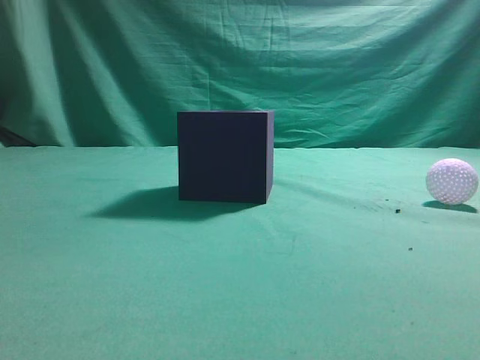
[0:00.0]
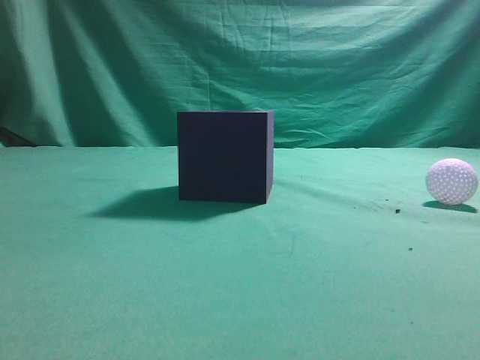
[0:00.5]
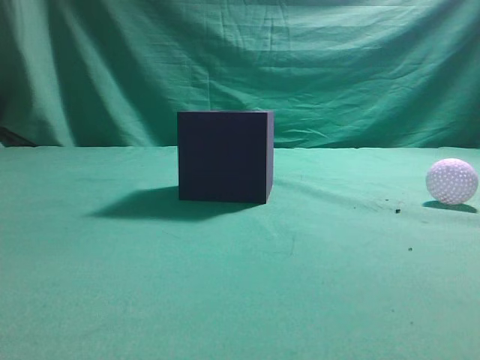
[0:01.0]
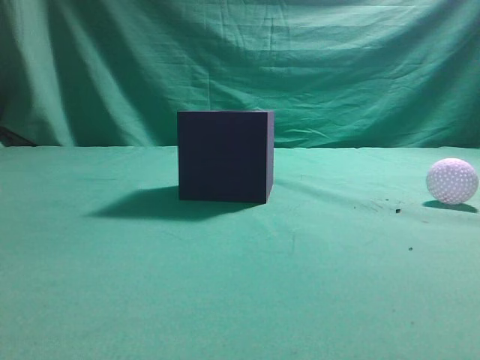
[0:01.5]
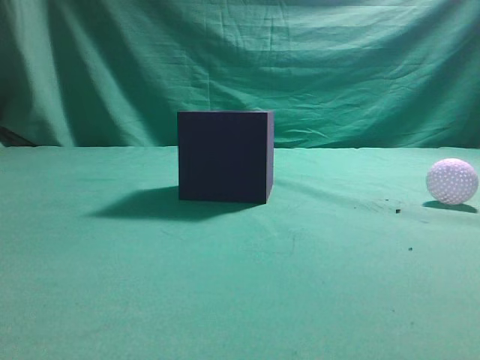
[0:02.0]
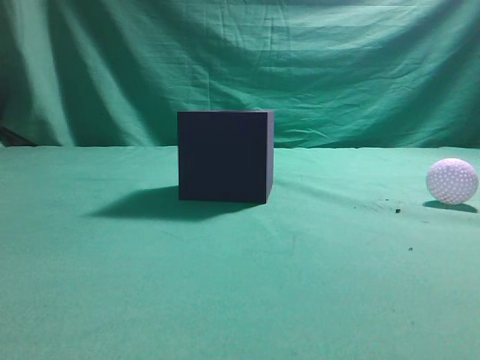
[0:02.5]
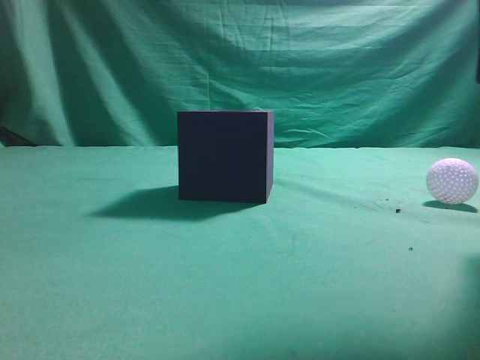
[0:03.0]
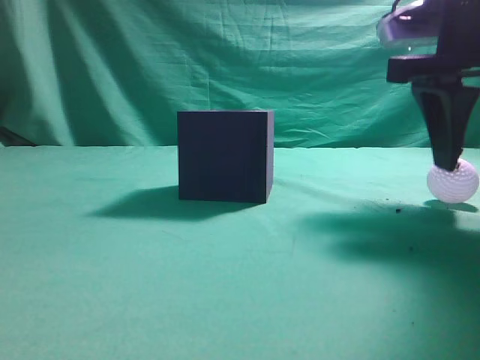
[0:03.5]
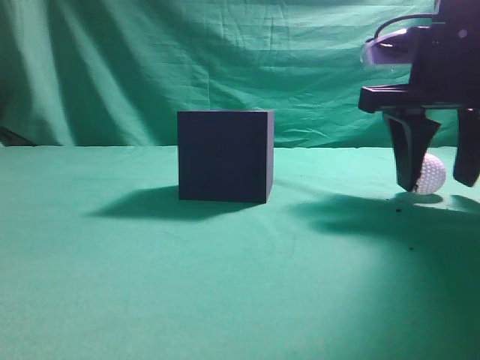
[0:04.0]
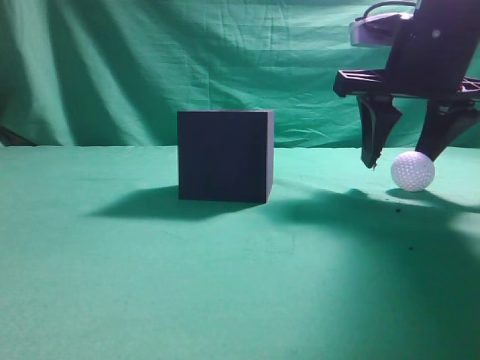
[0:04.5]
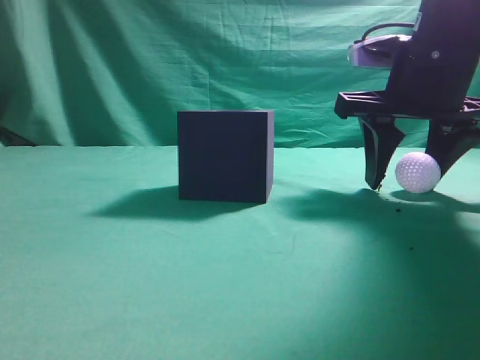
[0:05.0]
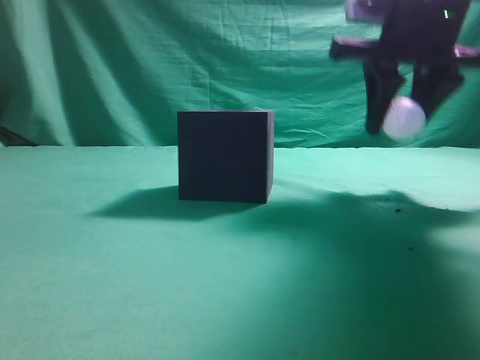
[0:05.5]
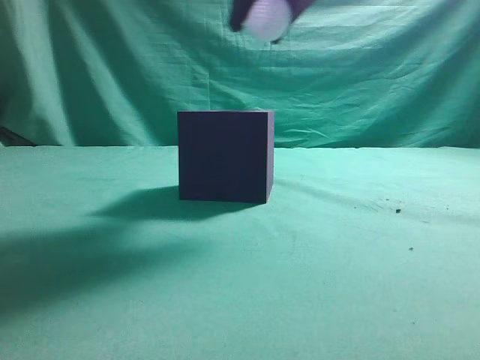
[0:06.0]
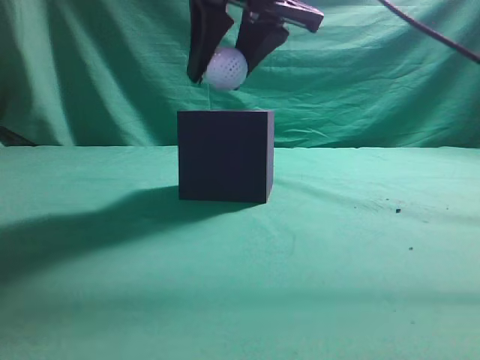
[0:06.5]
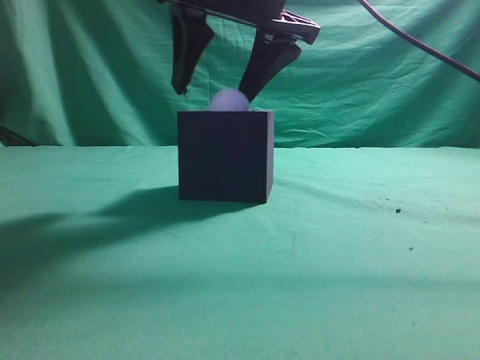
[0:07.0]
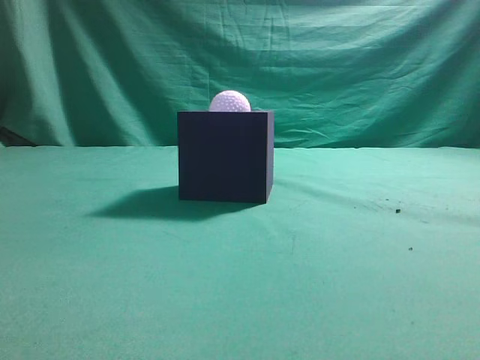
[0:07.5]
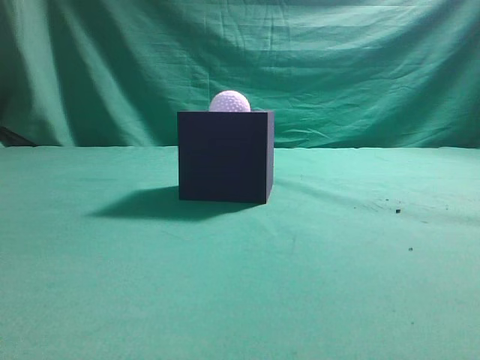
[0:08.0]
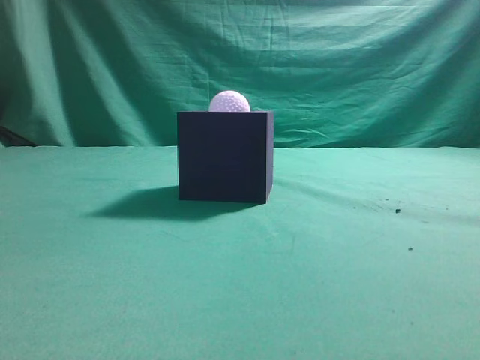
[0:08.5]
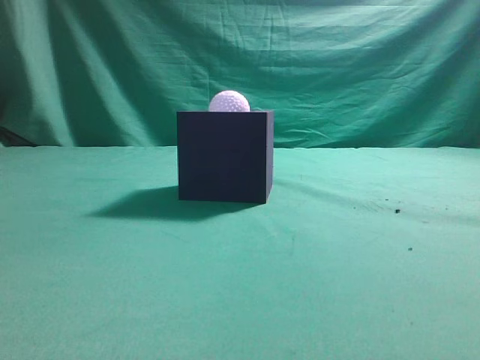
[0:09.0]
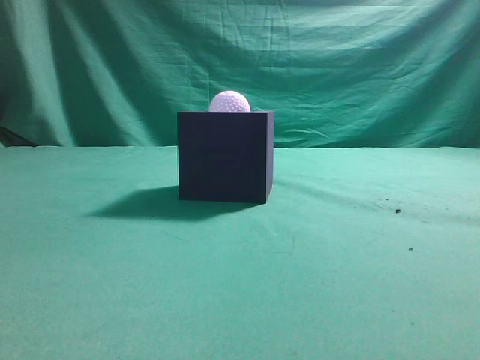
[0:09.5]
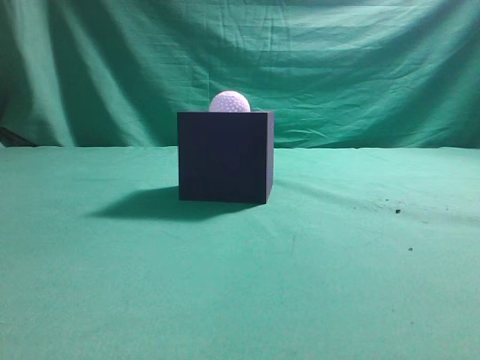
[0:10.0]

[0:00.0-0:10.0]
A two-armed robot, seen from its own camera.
Task of the whole recording: Pick up the ball and place it in the circular groove above the cube.
Step, 0:00.0 to 0:05.0: Grasp the sphere on the table.
Step, 0:05.5 to 0:07.0: Place the sphere into the sphere-shaped recess.
0:02.0 to 0:04.0: The right gripper travels forward and to the left by some 25 cm, and opens up.
0:04.0 to 0:06.0: The right gripper is displaced upward and to the left by roughly 15 cm.
0:06.0 to 0:08.0: The right gripper goes approximately 25 cm backward, upward and to the right, and closes up.
